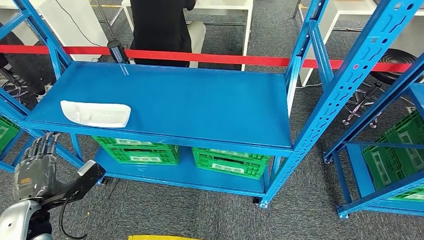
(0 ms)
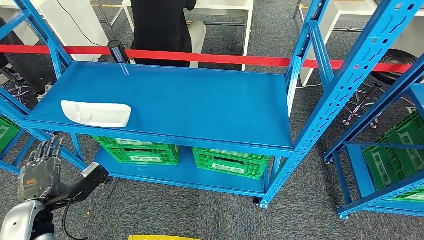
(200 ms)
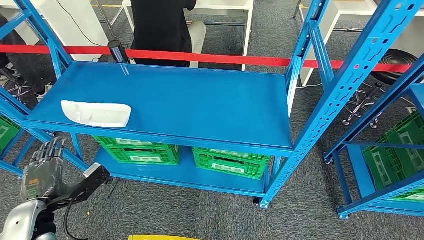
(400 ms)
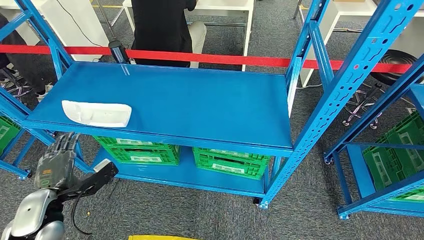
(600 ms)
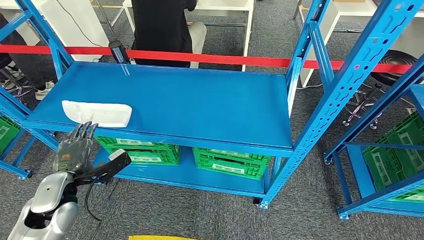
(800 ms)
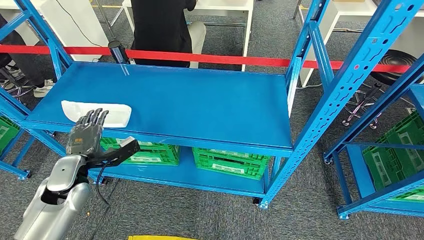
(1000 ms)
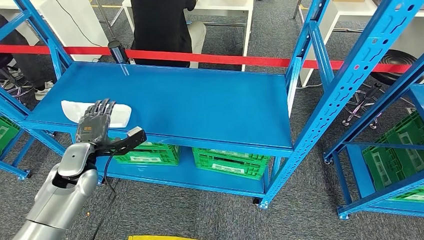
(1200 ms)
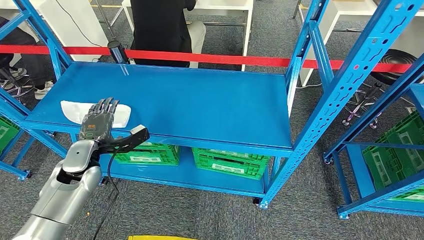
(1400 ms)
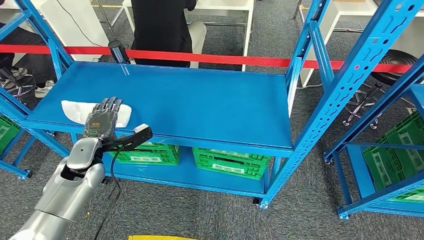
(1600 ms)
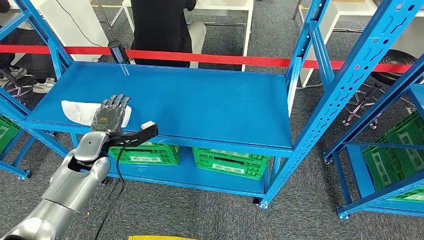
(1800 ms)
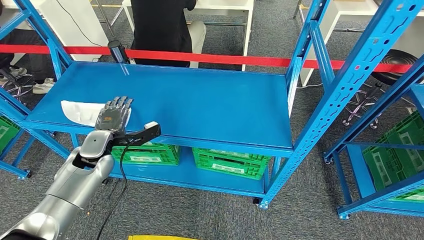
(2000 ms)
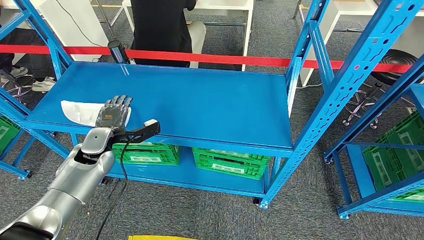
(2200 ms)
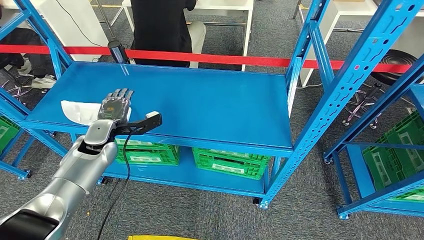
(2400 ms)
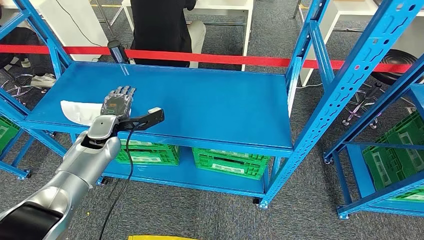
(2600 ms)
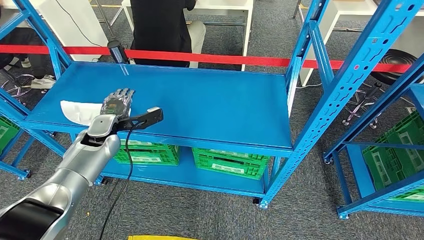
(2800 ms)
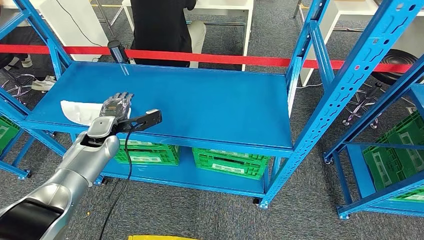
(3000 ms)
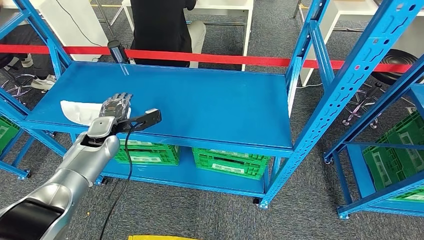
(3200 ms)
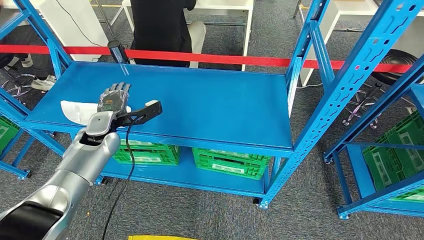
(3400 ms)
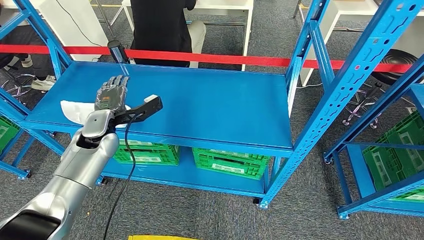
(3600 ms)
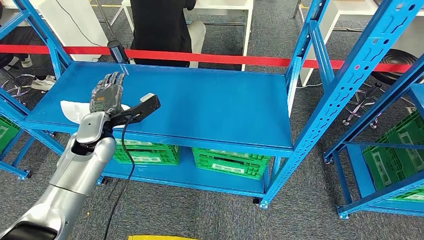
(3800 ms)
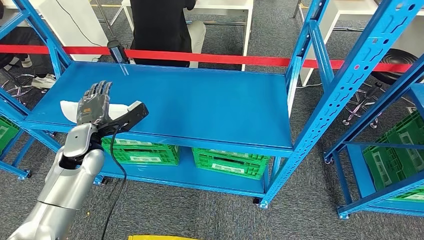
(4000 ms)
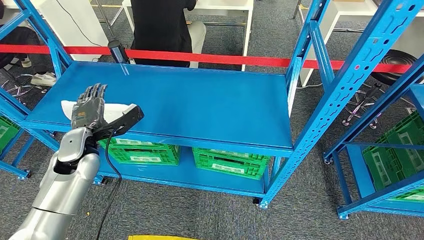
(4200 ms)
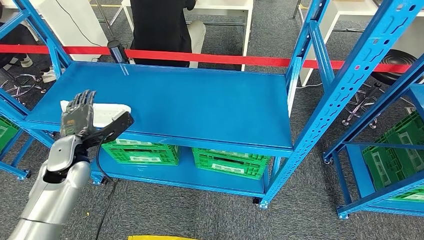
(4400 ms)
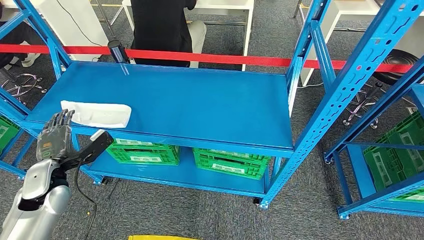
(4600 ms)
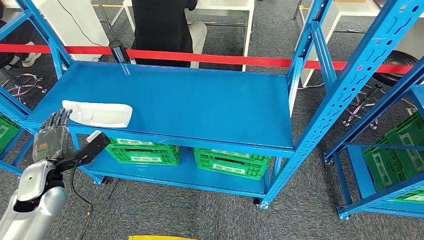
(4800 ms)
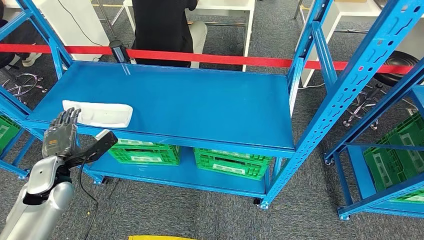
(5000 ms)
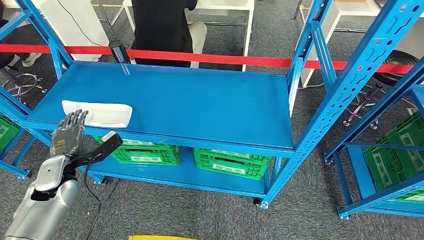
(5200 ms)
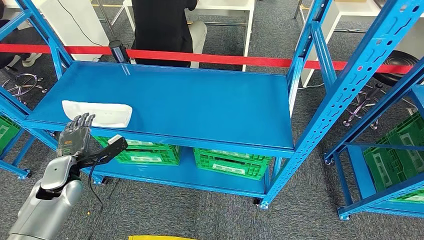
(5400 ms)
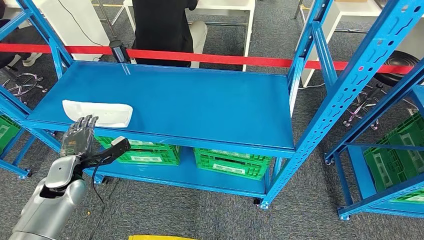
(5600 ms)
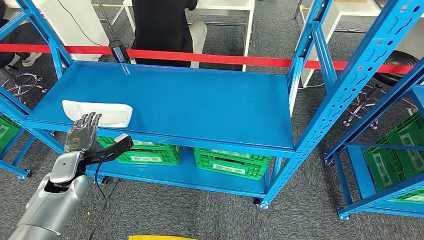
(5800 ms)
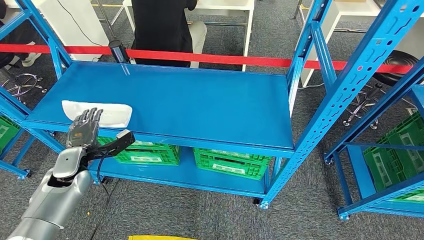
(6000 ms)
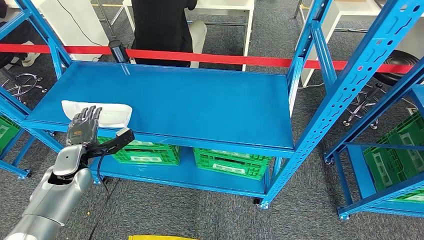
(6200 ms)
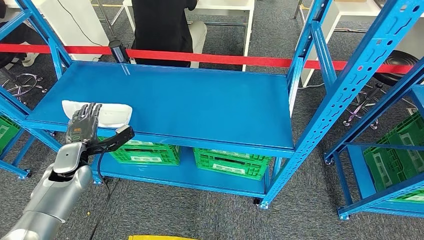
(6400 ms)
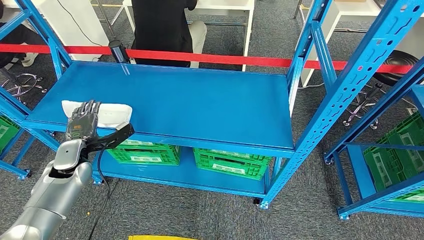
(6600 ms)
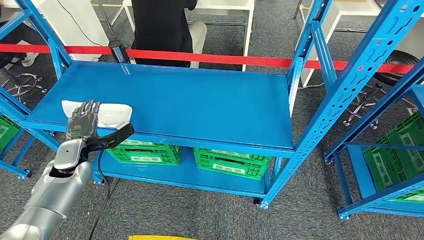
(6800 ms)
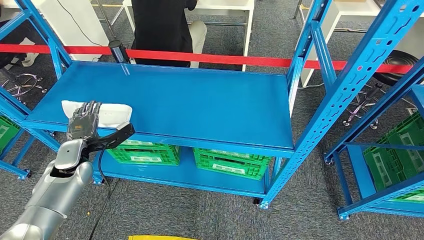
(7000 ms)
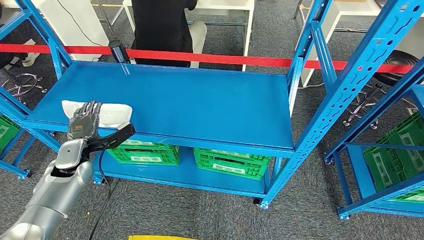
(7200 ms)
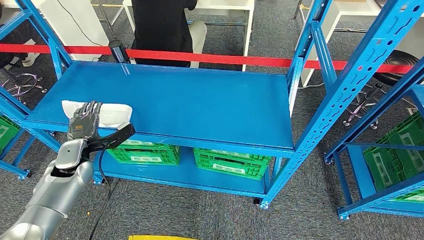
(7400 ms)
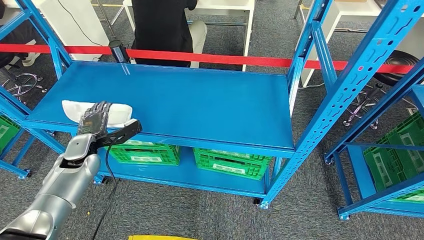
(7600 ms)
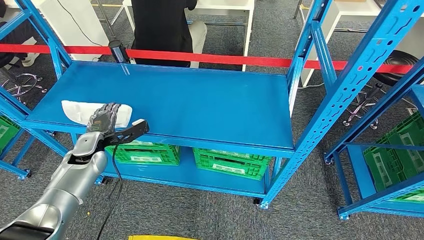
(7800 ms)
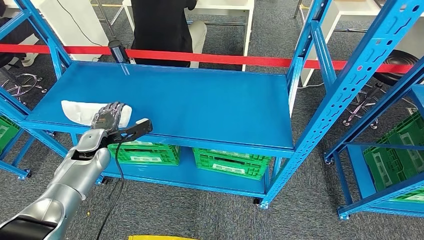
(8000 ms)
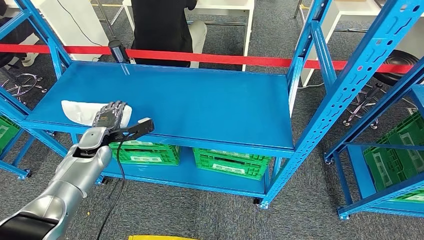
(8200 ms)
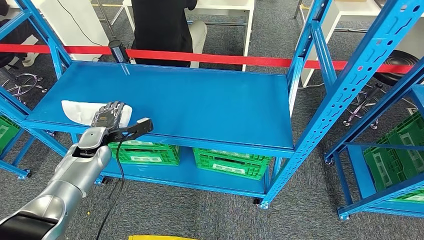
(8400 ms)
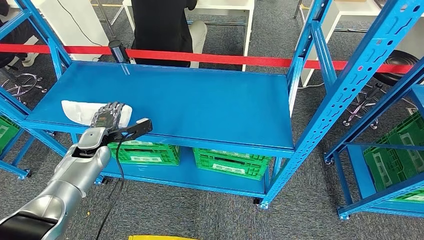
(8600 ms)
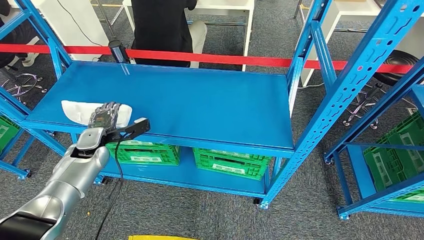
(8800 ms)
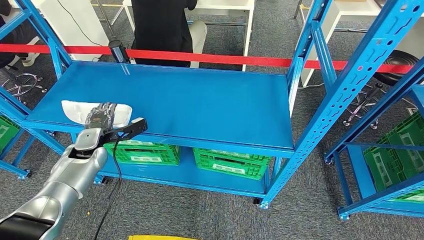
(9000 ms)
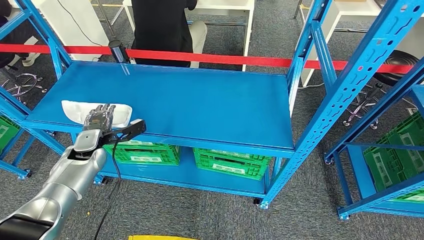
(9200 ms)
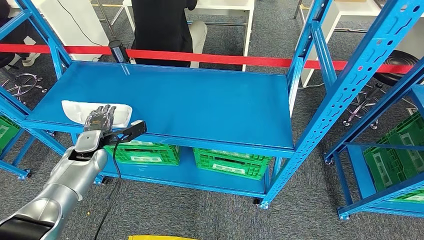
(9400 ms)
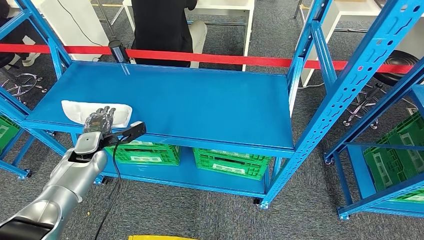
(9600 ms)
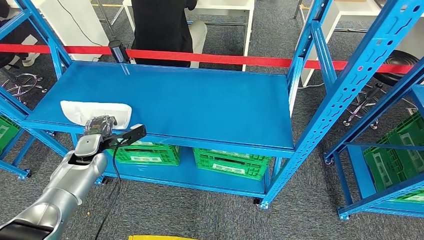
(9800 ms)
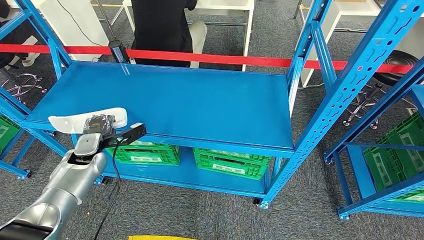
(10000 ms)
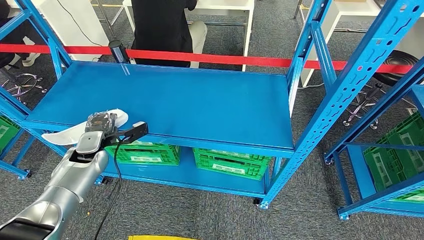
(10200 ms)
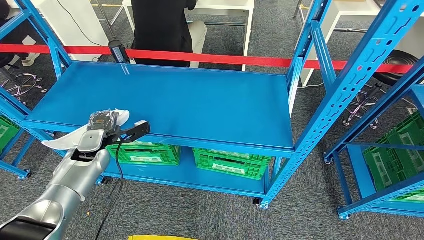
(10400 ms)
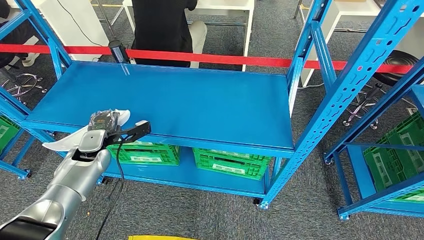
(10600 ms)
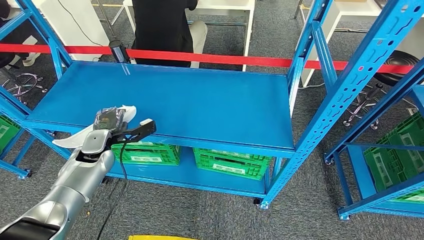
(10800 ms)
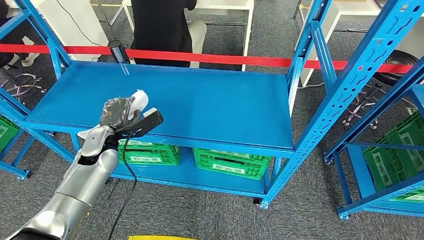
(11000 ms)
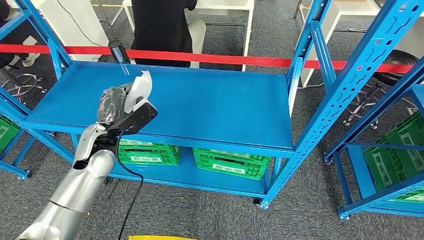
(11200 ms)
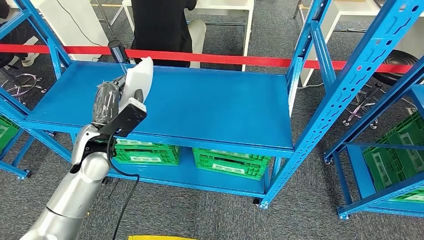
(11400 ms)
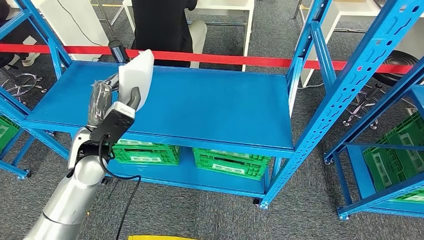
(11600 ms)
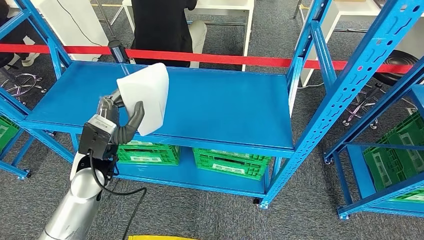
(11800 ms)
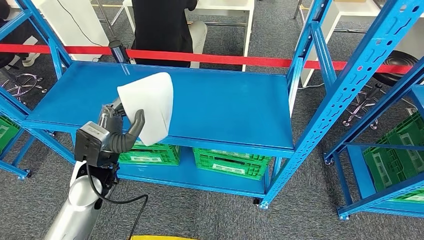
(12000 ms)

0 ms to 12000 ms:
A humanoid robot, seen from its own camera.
Step, 0 ms to 11800 ms: Pick up the small component from the shelf.
0 ms to 1600 ms: The left hand heads forward, covering about 15 cm.
1600 ms to 3000 ms: The left hand goes some 5 cm forward.
3000 ms to 4400 ms: The left hand shifts approximately 10 cm backward, while the right hand travels to the left by approximately 5 cm.
4400 ms to 6000 ms: The right hand is displaced to the right and upward by about 10 cm. The left hand heads downward, covering approximately 5 cm.
6000 ms to 7600 ms: The hands stay close to where they were, moving slightly.
7600 ms to 10400 ms: The hands move only a little.
10400 ms to 12000 ms: The right hand moves downward and to the left, approximately 10 cm; the left hand shifts approximately 15 cm to the right, backward and upward.

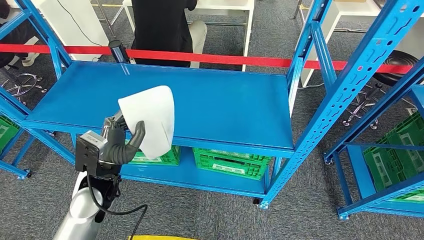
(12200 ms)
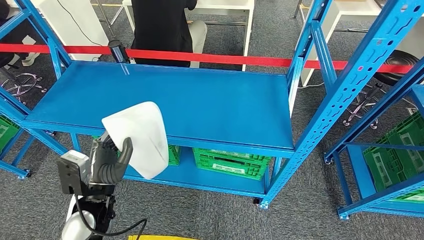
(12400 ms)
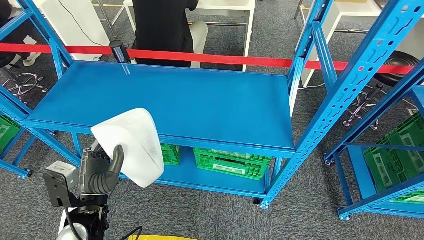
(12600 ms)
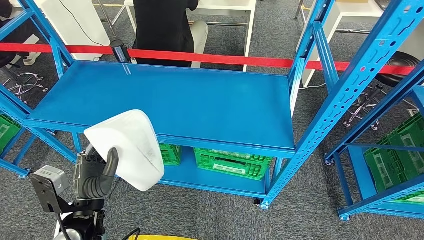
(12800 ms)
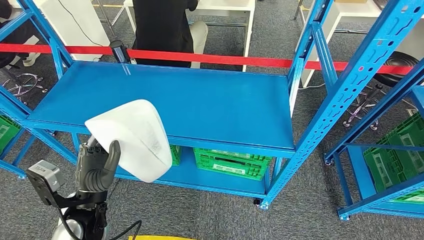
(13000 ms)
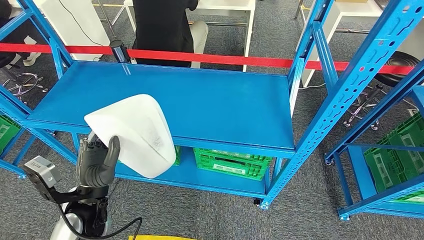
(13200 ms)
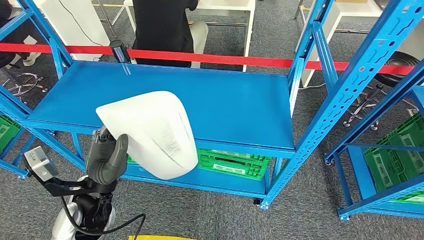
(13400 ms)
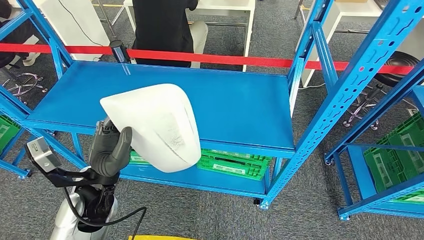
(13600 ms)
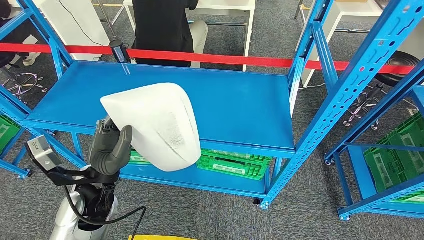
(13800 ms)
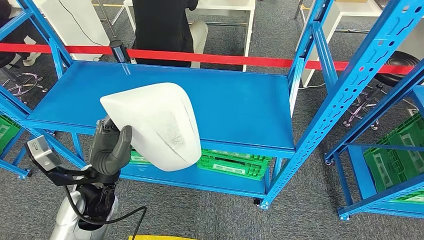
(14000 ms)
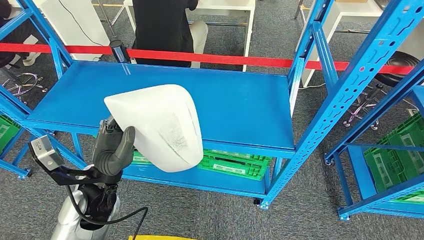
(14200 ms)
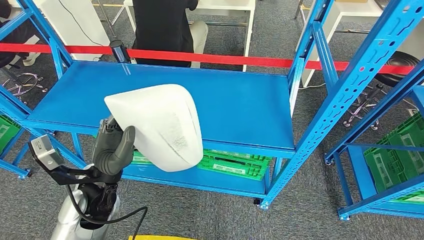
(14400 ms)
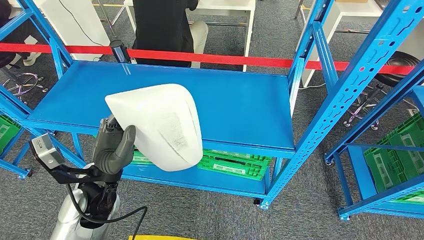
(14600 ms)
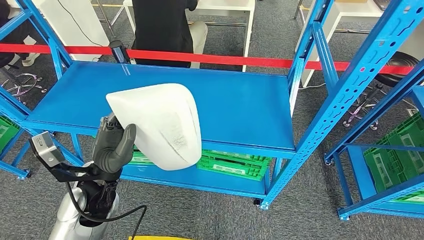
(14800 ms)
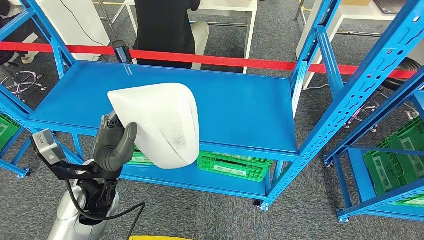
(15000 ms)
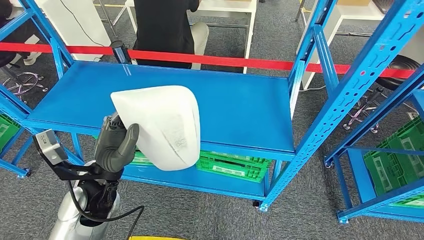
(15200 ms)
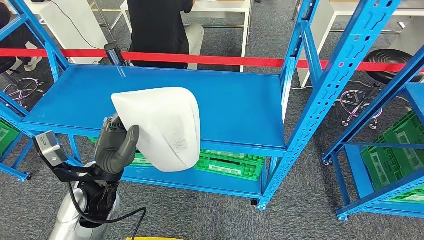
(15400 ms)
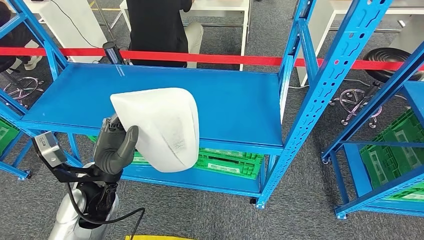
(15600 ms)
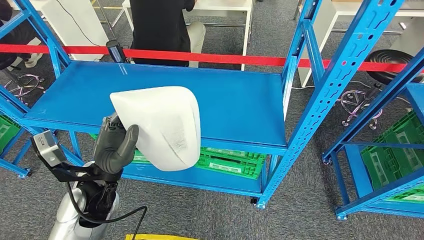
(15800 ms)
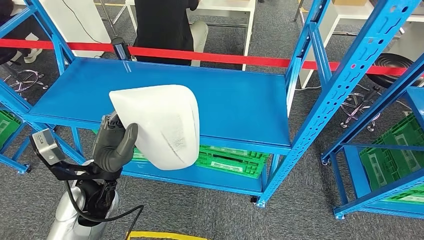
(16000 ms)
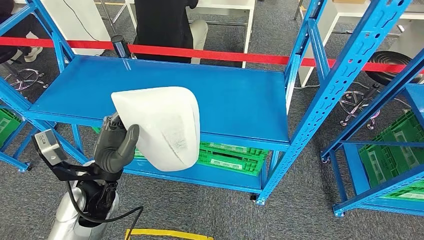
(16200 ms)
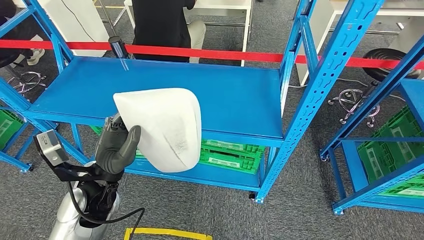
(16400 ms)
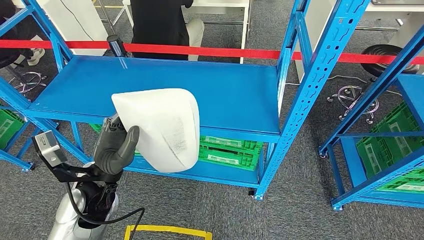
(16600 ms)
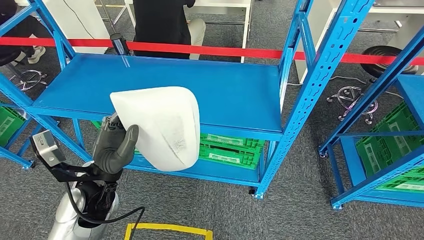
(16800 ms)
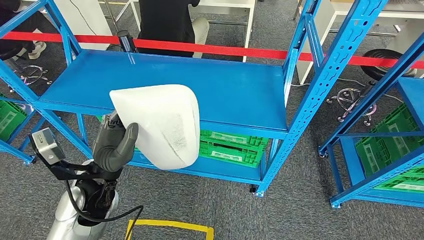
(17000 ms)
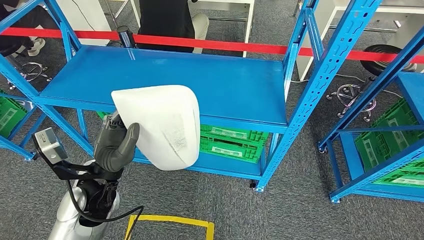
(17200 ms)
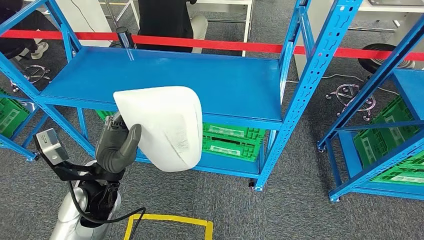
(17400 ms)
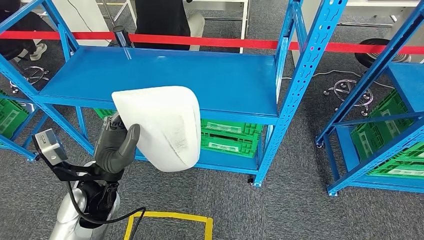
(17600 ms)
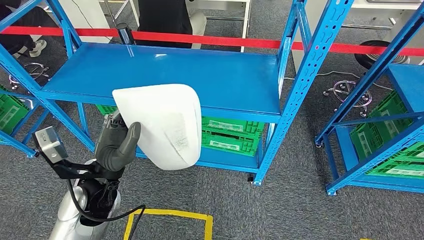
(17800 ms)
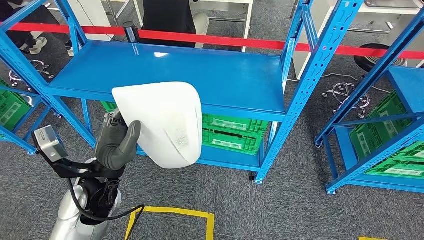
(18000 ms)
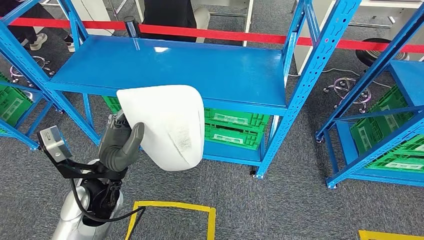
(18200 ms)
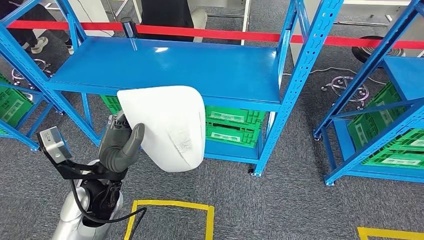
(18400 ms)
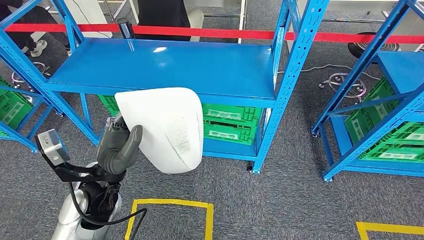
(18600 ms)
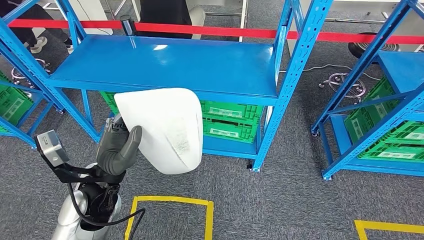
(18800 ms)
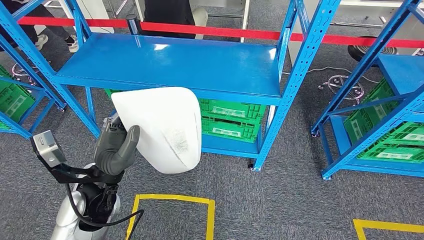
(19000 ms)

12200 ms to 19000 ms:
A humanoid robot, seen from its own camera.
12200 ms to 13600 ms: The right hand heads forward, covering roughly 5 cm, while the left hand reaches approximately 10 cm backward, then returns.
